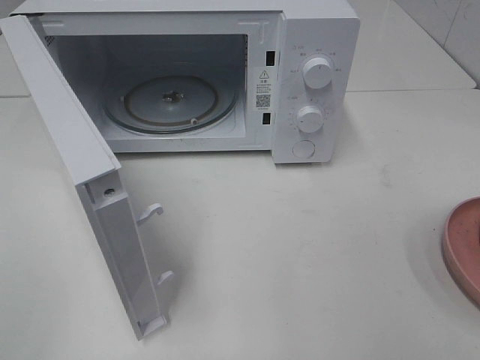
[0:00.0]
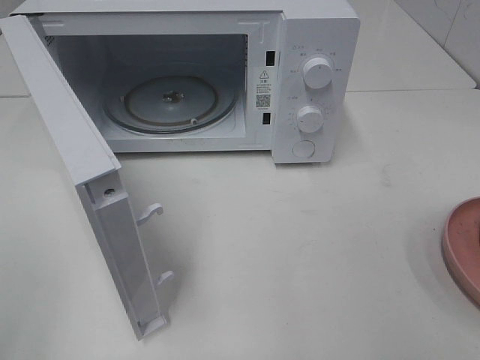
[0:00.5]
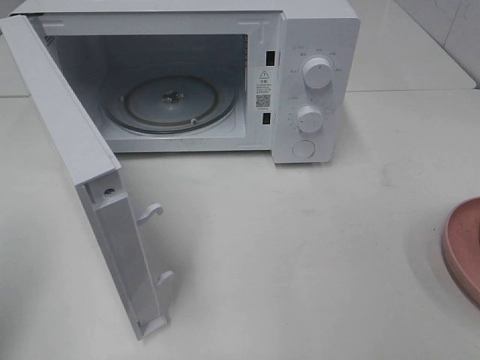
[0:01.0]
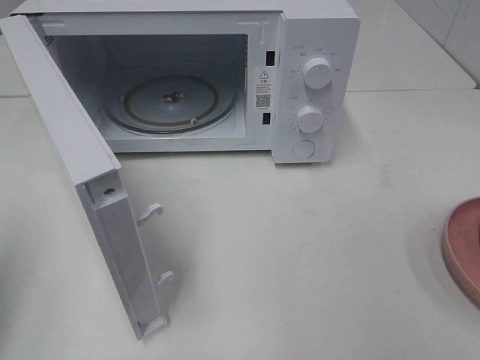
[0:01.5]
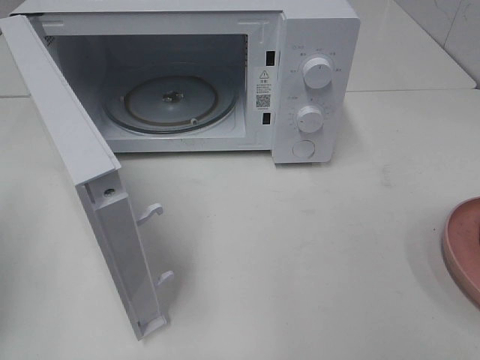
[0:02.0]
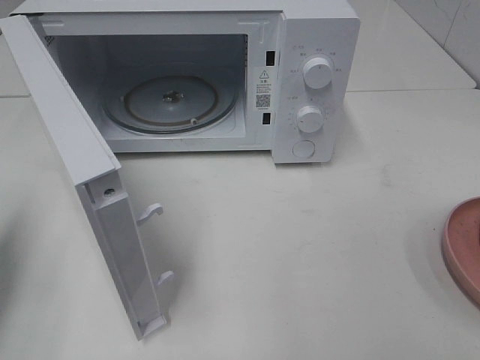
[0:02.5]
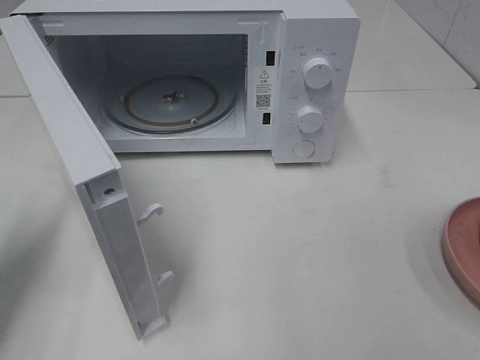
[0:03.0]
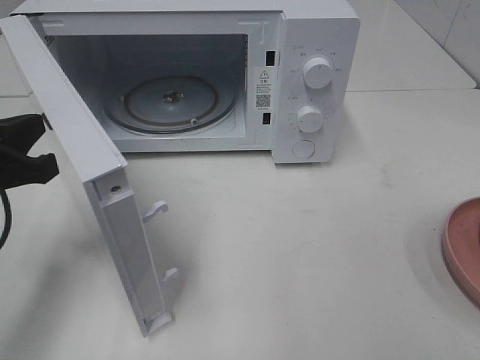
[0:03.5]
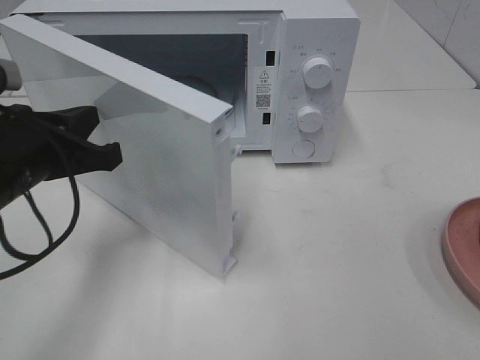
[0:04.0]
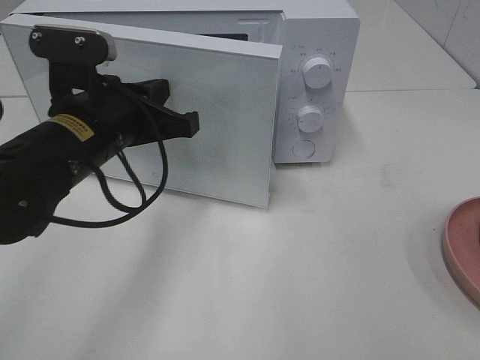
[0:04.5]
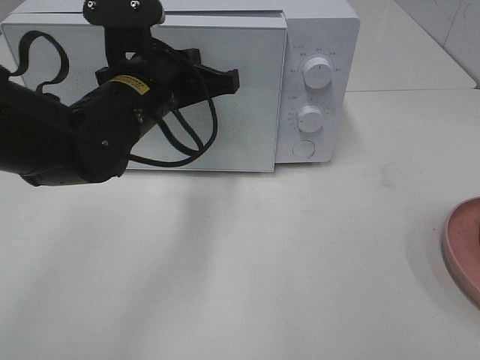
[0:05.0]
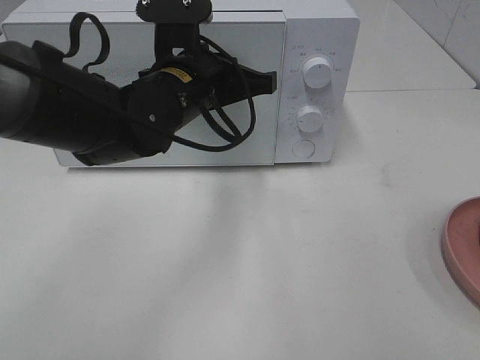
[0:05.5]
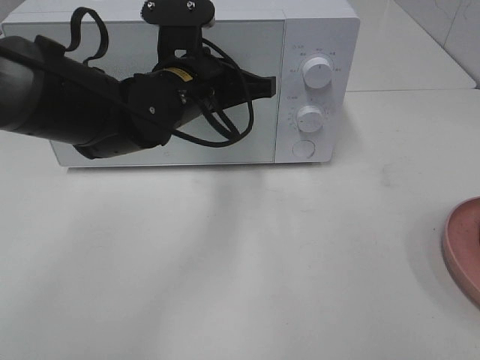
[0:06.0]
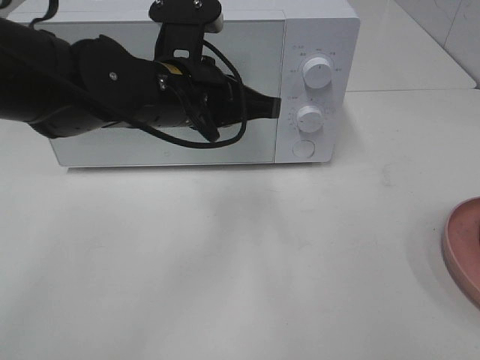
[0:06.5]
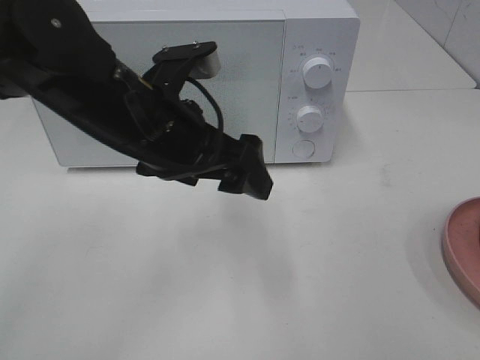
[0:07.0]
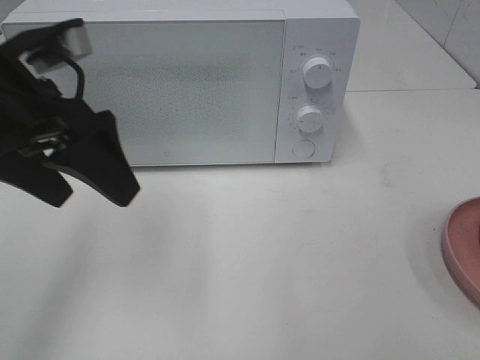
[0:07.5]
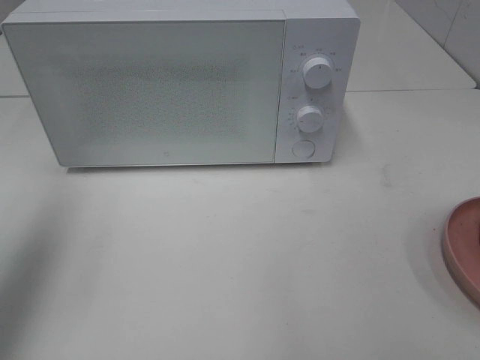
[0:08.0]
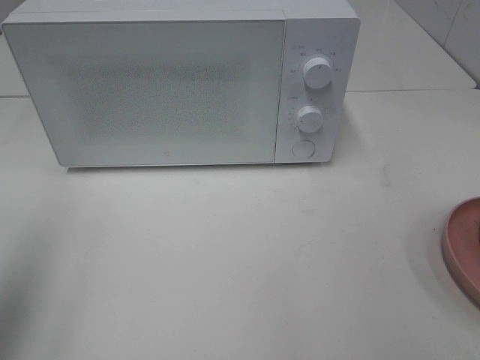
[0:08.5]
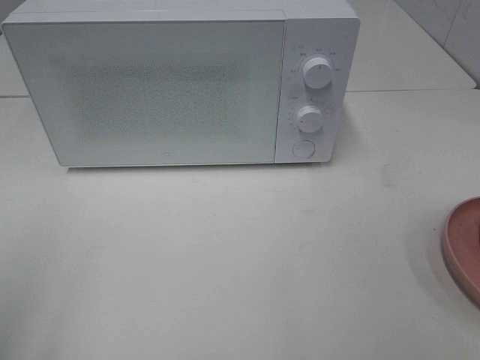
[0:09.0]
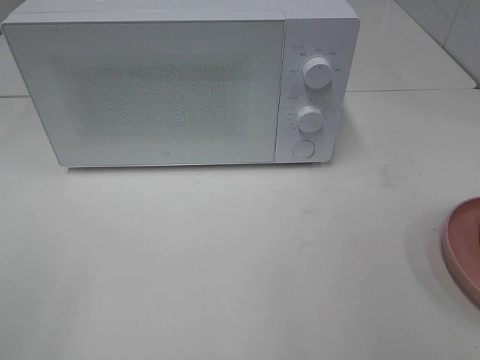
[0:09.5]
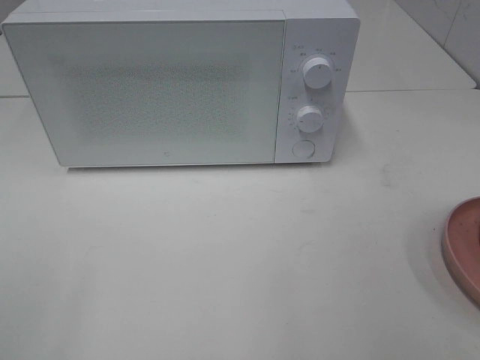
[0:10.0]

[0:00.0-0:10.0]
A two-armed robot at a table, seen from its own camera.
Task of the whole recording: Heat the burger.
Step, 0.0 to 6.5 s: Left hand: close the microwave door.
2.0 to 4.0 s: The left gripper shifts roughly 20 cm to the right, forward and downward.
4.0 to 6.0 s: The left gripper heads to the right and forward, covering roughly 20 cm.
6.0 to 8.0 s: The left gripper heads to the left, upward and backward, covering roughly 30 cm, and opens its fingers.
8.0 to 10.0 s: The left gripper shifts some 20 cm backward.

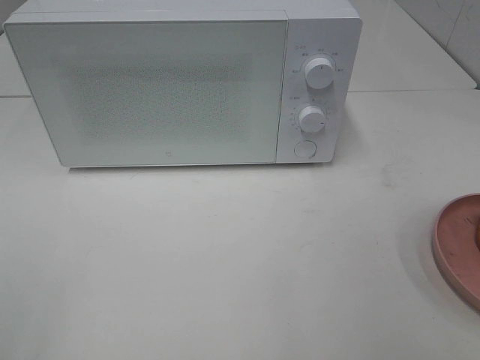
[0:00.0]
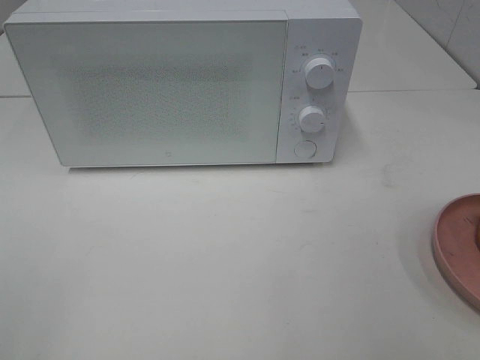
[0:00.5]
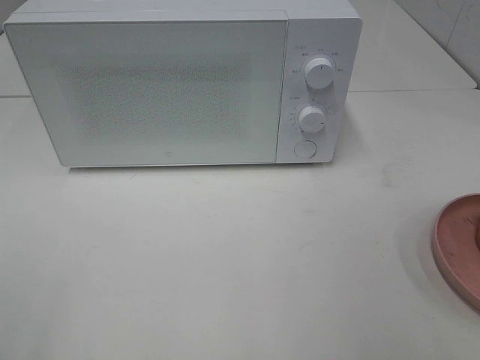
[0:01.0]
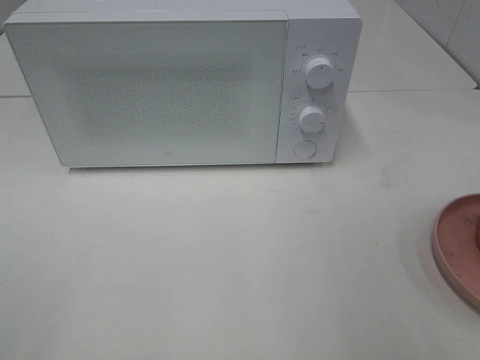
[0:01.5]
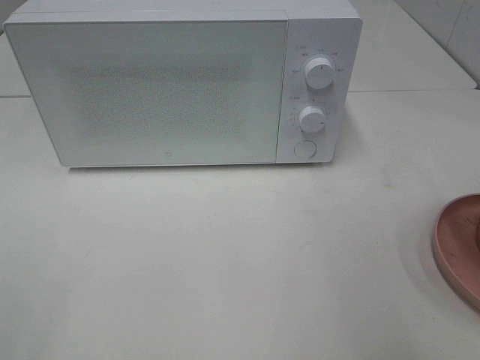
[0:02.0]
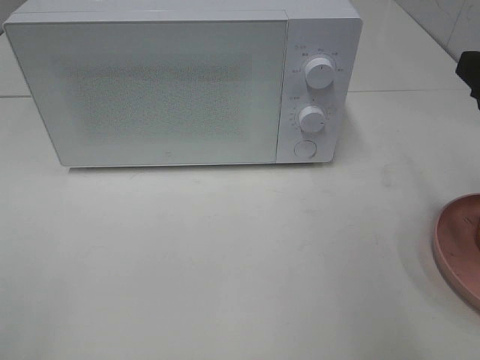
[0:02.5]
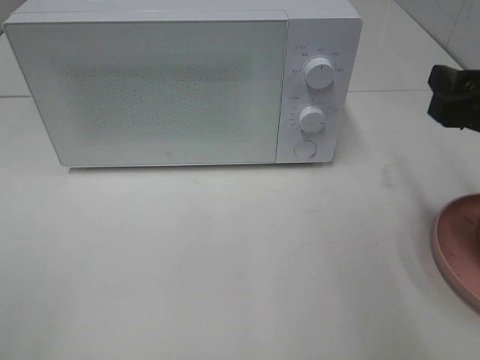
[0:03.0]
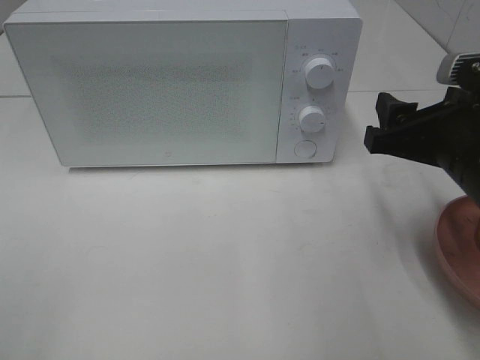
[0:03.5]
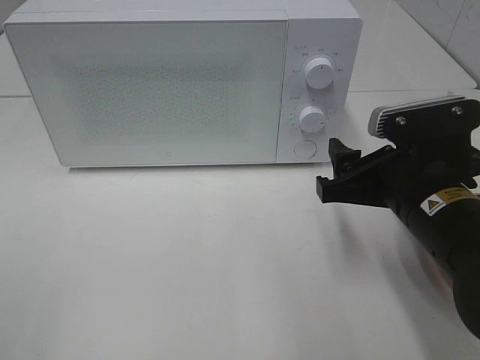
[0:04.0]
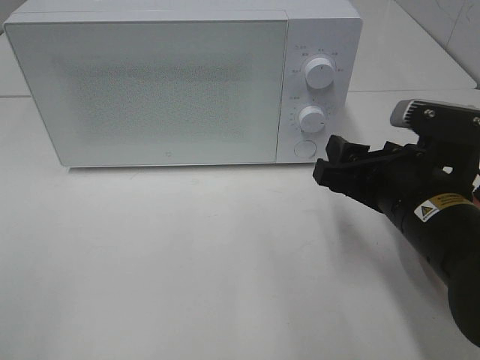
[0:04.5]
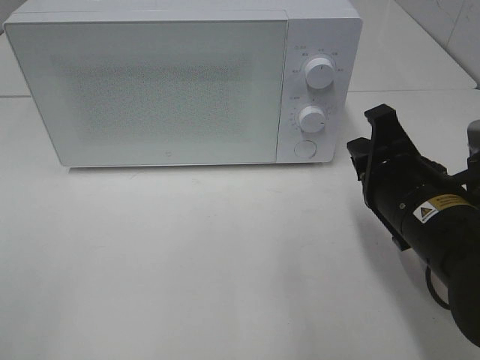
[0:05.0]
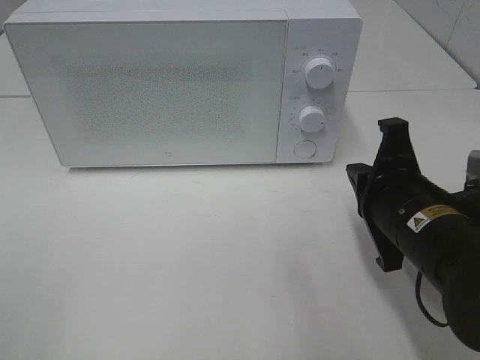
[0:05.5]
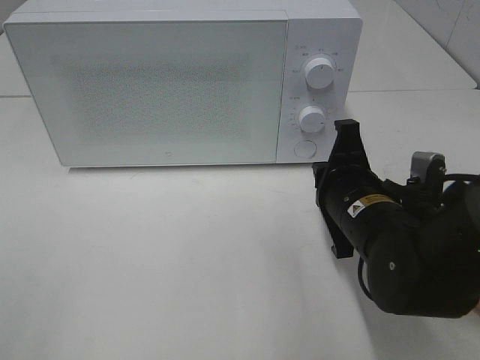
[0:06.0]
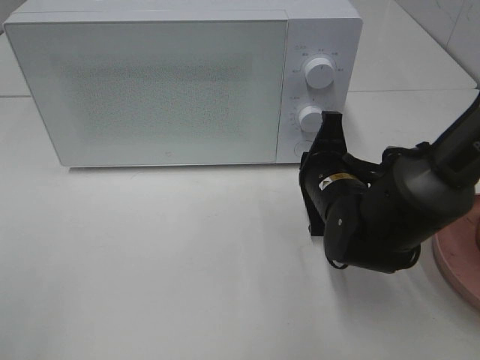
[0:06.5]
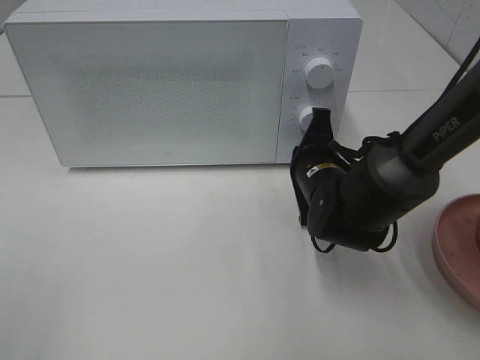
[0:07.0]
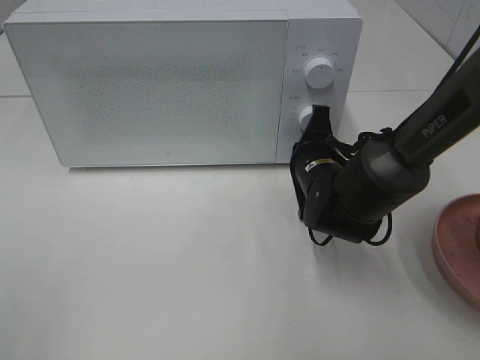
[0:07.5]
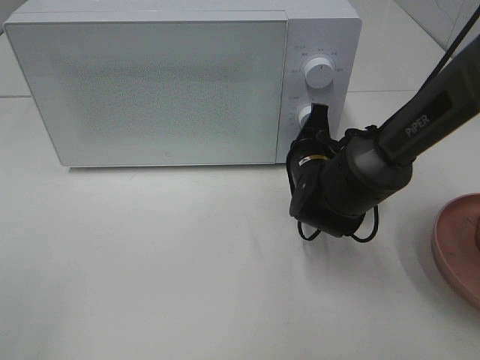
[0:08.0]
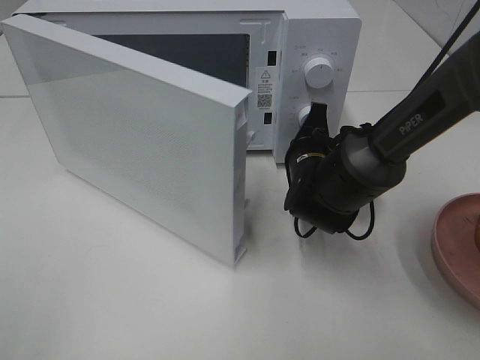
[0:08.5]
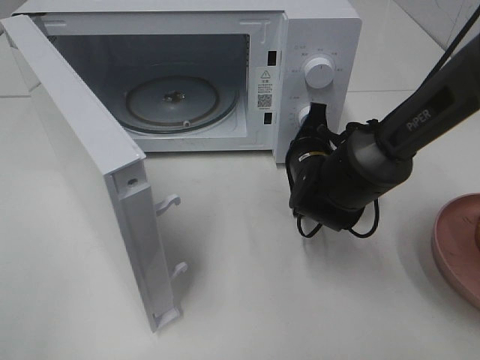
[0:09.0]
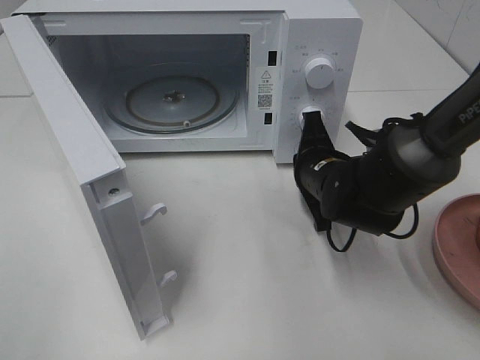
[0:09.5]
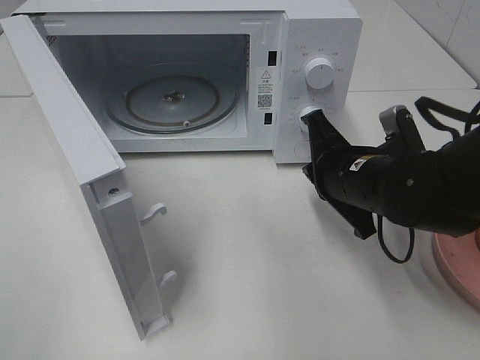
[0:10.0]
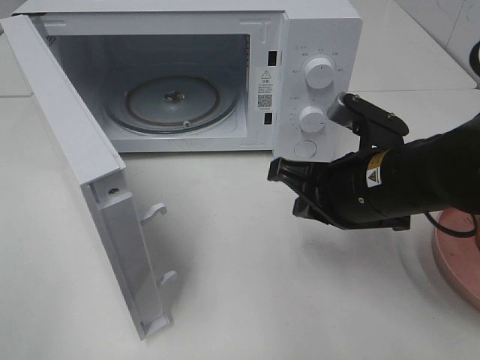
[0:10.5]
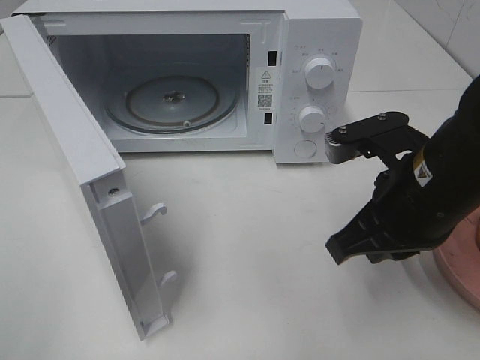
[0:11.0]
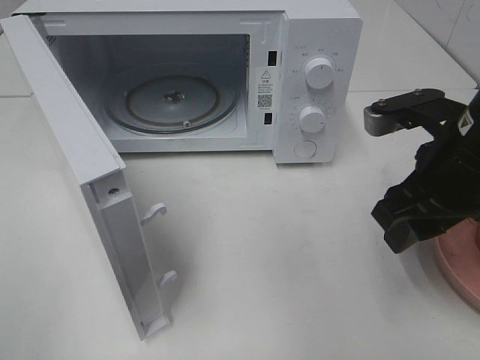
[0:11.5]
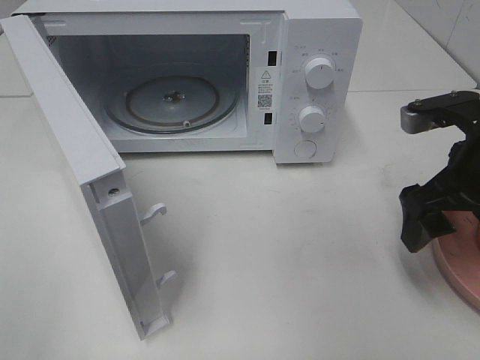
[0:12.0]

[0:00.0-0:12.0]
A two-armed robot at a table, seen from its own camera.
Task of the whole recording: Heat the burger.
Step, 0.0 to 9.5 s: Right hand: press the switch.
2.0 to 4.0 s: The right gripper moves downward, to the left and forward, approximately 15 cm.
4.0 to 6.0 s: The right gripper moves about 5 cm, and closes.
6.0 to 8.0 s: The right gripper travels forward by roughly 10 cm.
8.0 to 10.0 s: The right gripper heads backward and upward, covering about 10 cm.
10.0 to 12.0 s: The right gripper goes about 10 cm to the right and upward, and opens up.

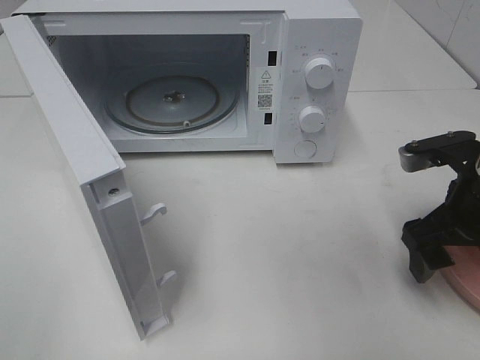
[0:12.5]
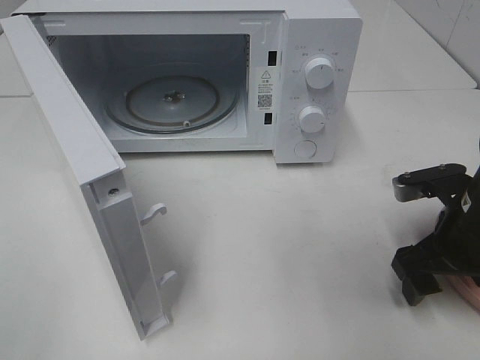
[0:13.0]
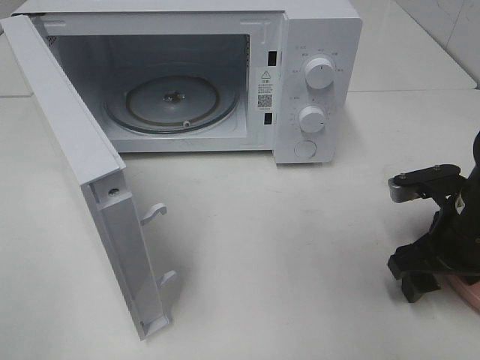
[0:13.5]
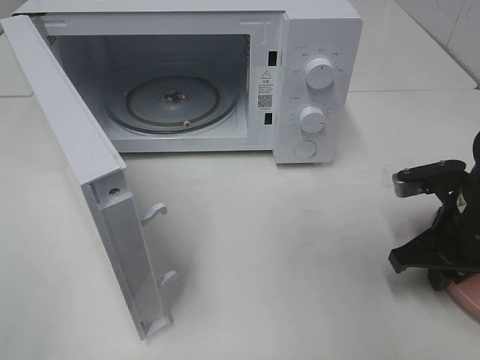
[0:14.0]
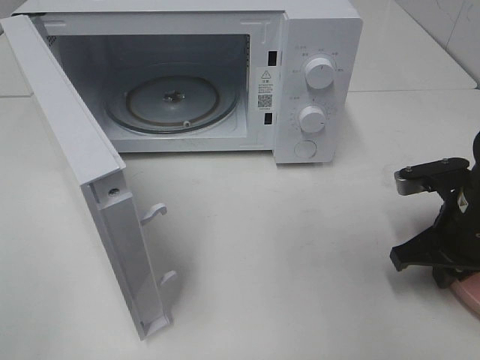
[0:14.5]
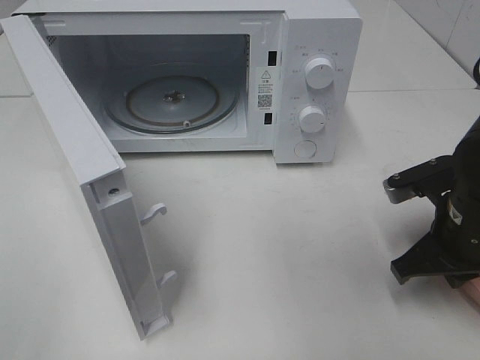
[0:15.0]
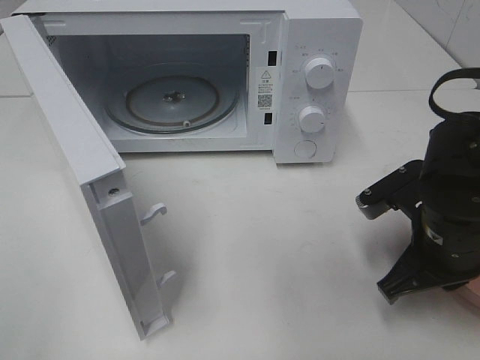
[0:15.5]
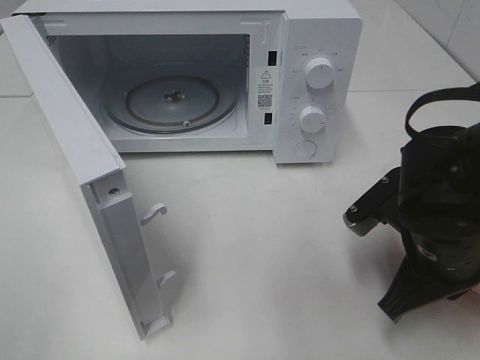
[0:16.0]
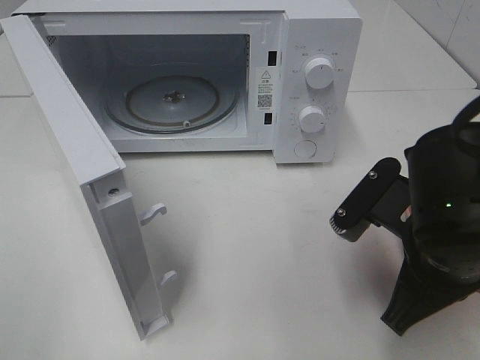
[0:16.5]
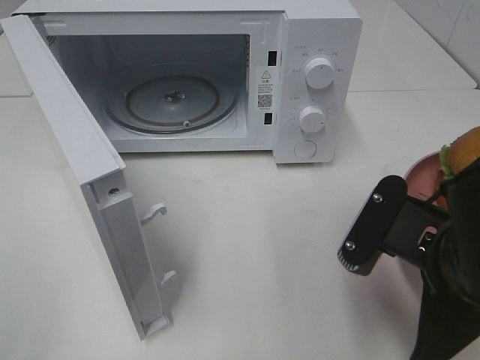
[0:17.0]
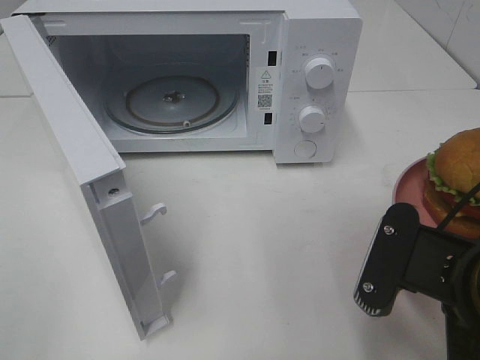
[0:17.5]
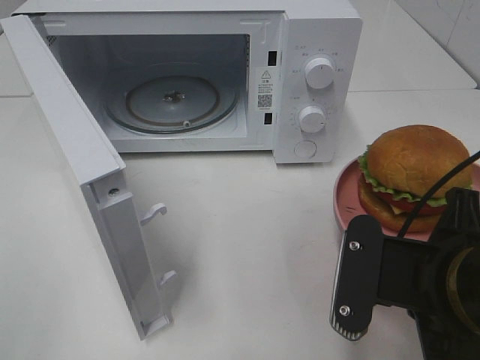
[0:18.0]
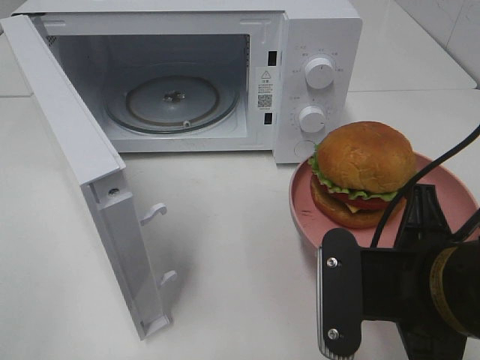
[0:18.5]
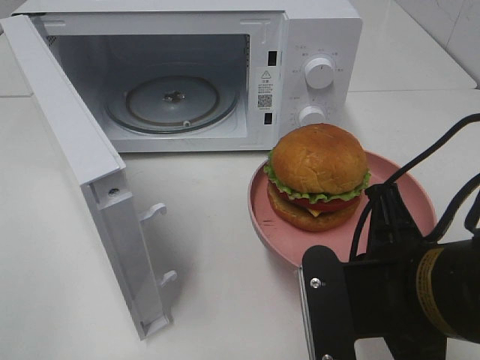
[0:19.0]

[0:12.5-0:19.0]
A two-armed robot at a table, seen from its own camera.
Task of the whole recording: Heat the burger.
Step, 12.5 to 14.5 s: Right hand: grab the plate with the hamburger.
12.5 to 14.5 s: The right gripper closes.
14.5 to 17.0 s: The right gripper heads backward, to the left and upward, covering about 15 cm.
